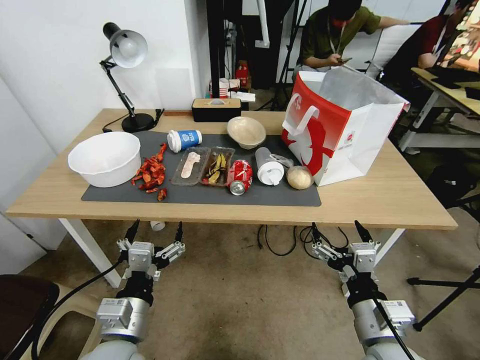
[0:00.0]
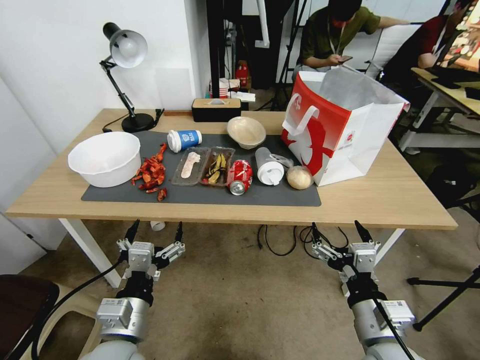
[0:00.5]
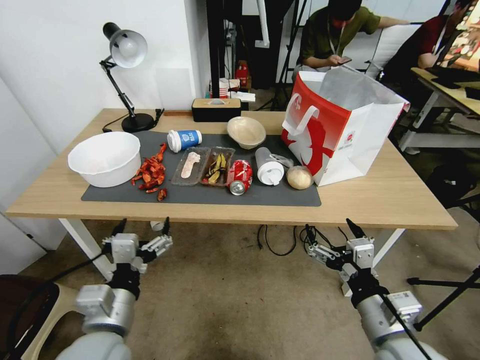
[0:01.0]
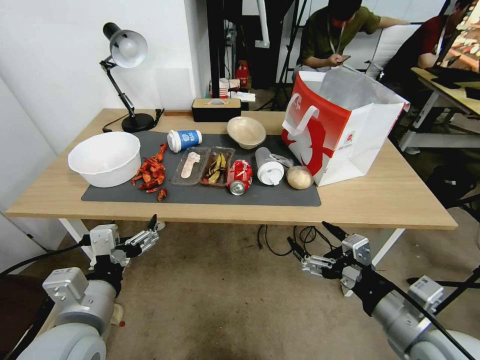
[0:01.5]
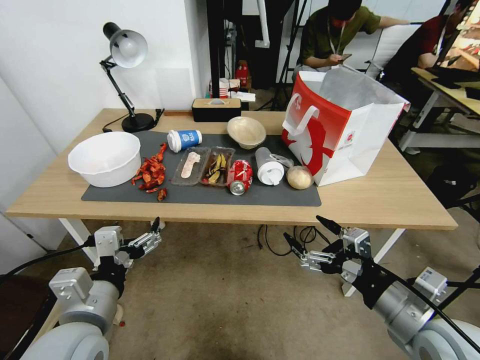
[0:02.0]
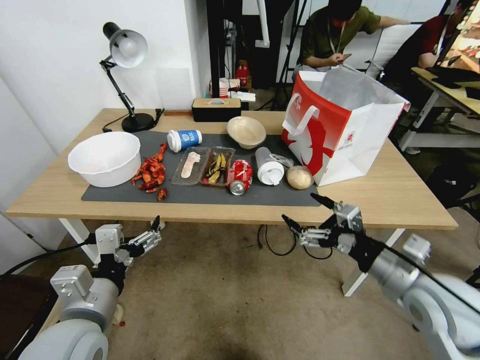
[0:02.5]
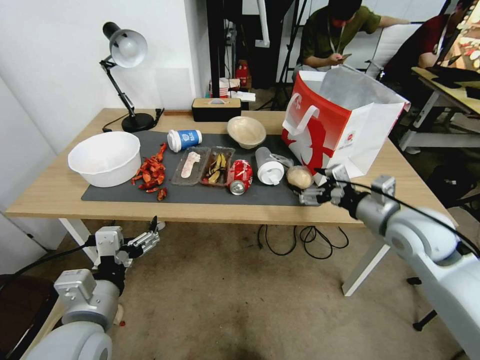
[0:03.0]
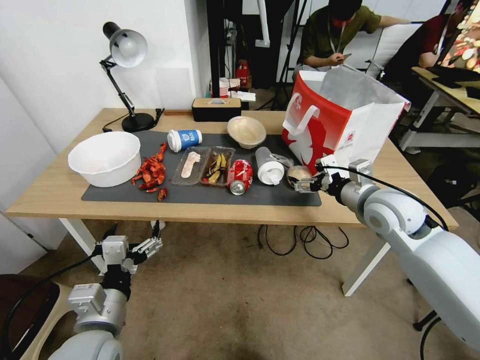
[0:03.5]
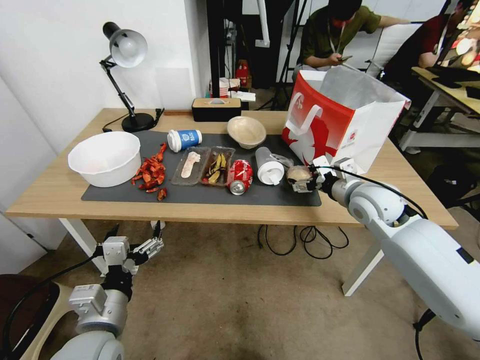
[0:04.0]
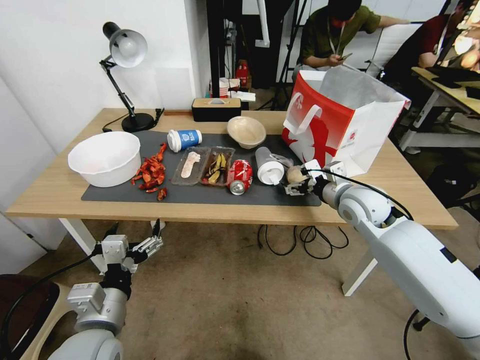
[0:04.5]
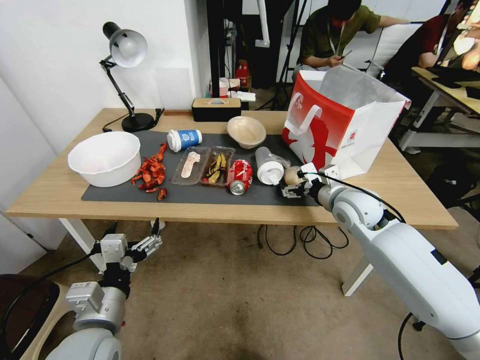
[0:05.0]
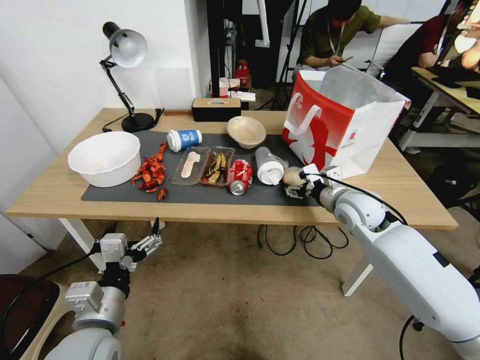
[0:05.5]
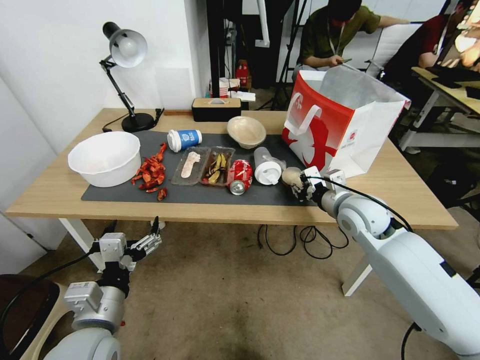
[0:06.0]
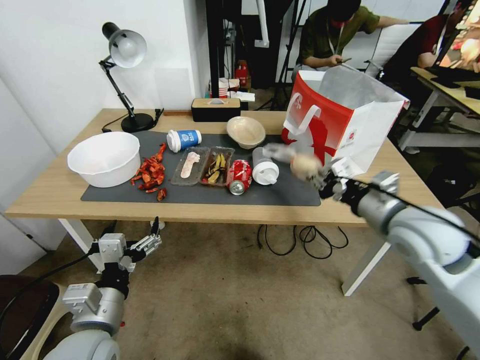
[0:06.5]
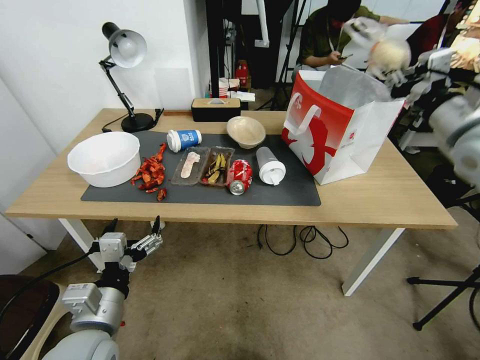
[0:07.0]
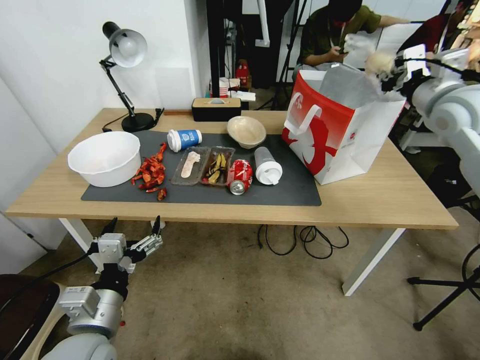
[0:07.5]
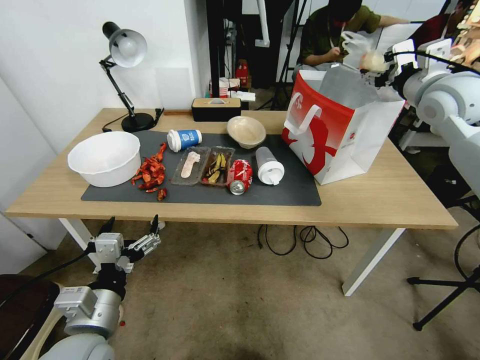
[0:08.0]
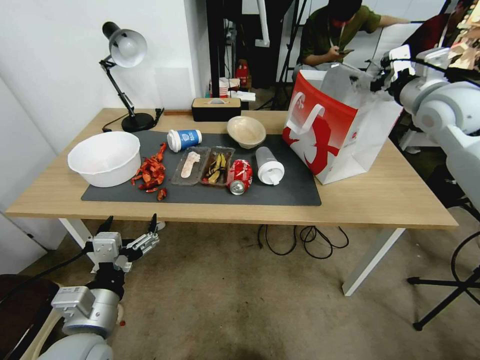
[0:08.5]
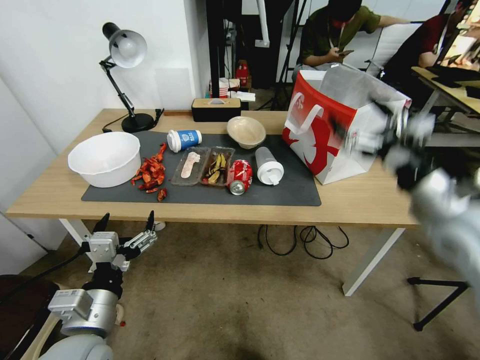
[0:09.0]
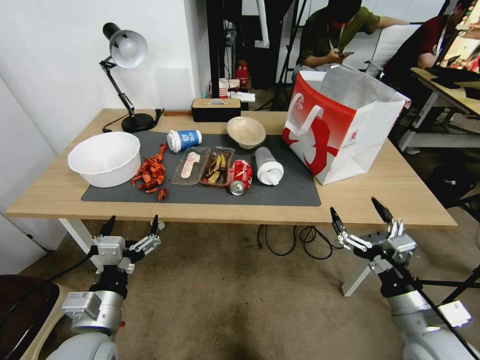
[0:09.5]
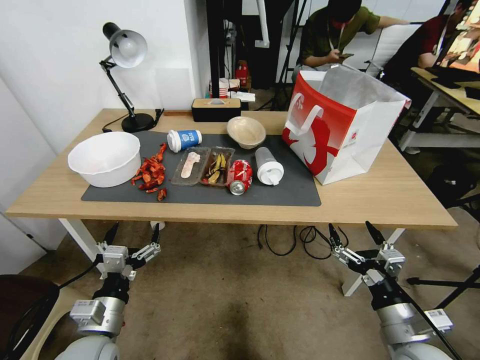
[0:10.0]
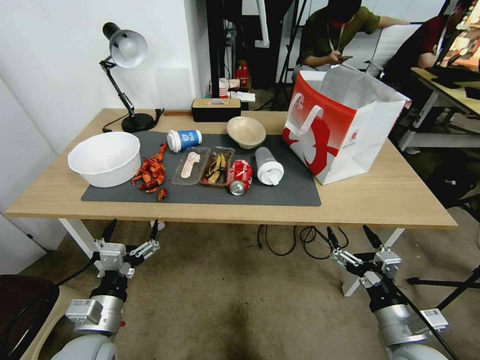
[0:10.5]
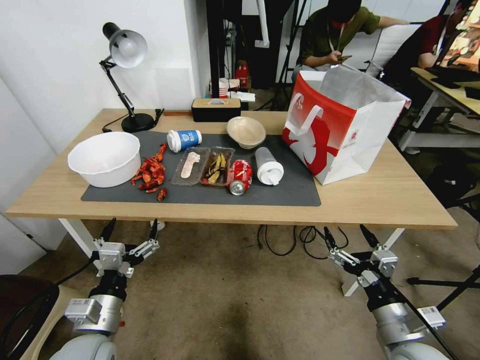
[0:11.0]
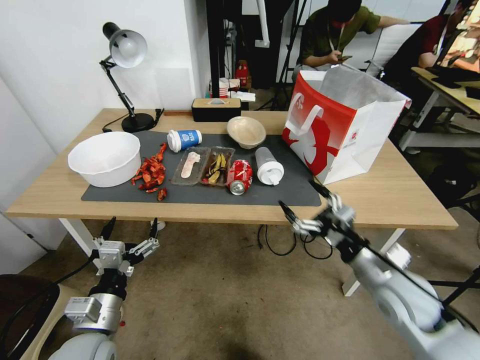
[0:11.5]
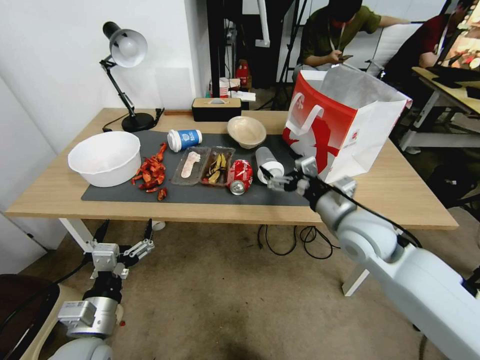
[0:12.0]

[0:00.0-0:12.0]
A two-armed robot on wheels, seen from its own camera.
2.0 to 4.0 s: The right gripper moves forward, approximately 25 cm. Meanwhile the left gripper moves downward, some 5 cm.
4.0 to 6.0 s: The right gripper closes its fingers.
6.0 to 8.0 s: The right gripper is displaced upward and to the right by approximately 25 cm, and opens up.
8.0 to 10.0 s: The right gripper shifts approximately 50 cm backward and downward, and opens its fingers, while the left gripper shifts approximately 10 cm downward.
10.0 to 12.0 s: The right gripper goes roughly 25 cm forward and upward.

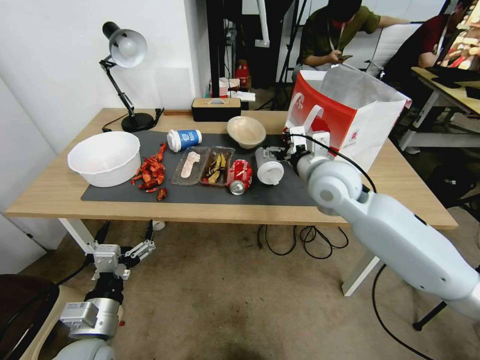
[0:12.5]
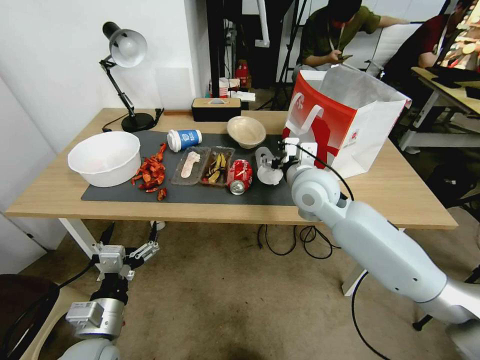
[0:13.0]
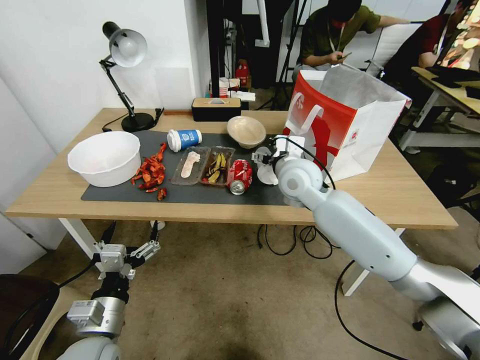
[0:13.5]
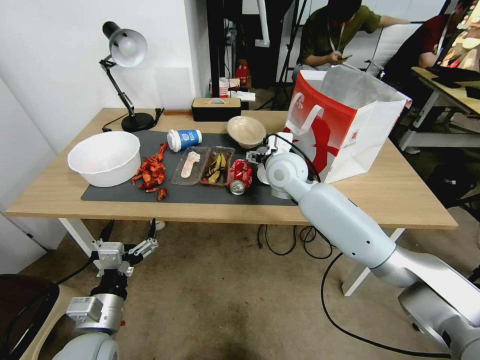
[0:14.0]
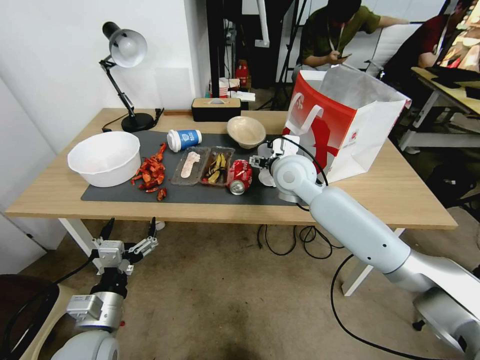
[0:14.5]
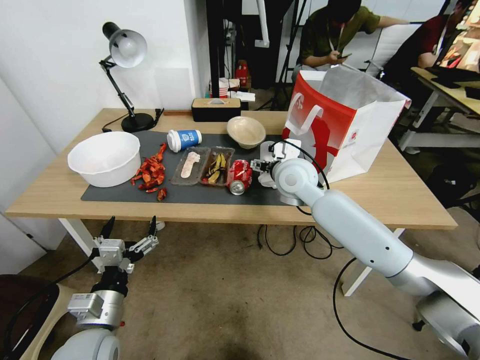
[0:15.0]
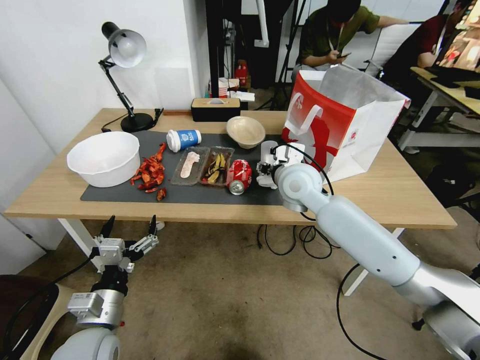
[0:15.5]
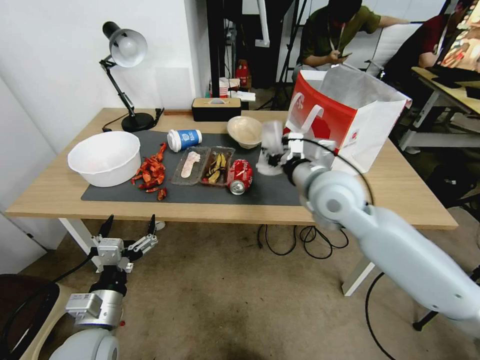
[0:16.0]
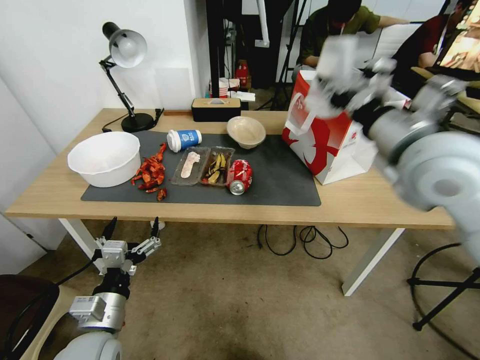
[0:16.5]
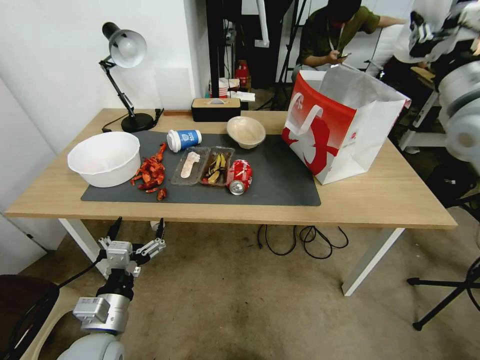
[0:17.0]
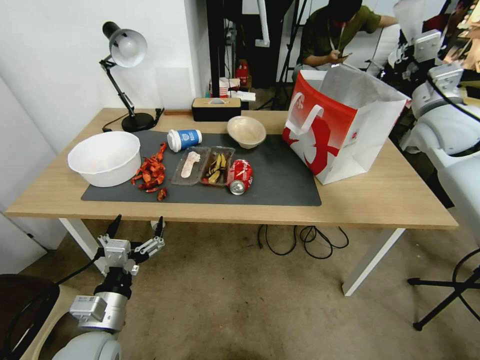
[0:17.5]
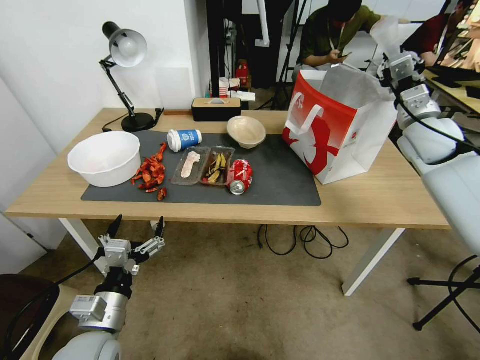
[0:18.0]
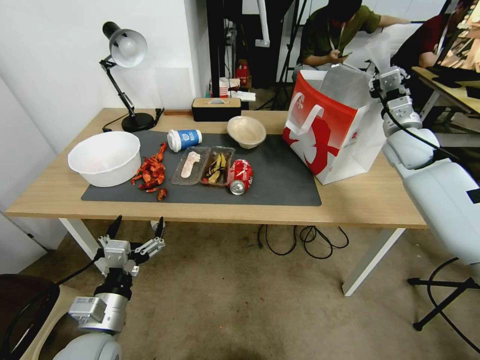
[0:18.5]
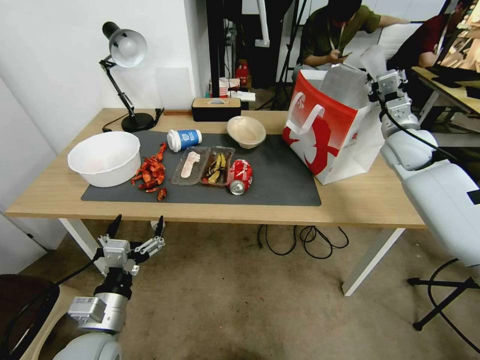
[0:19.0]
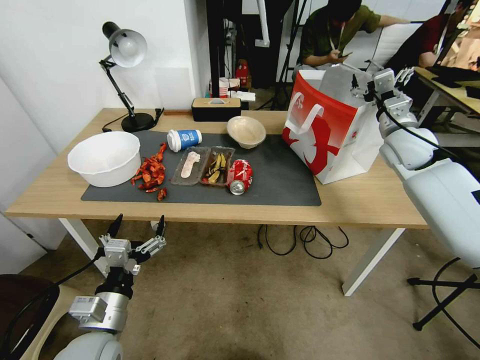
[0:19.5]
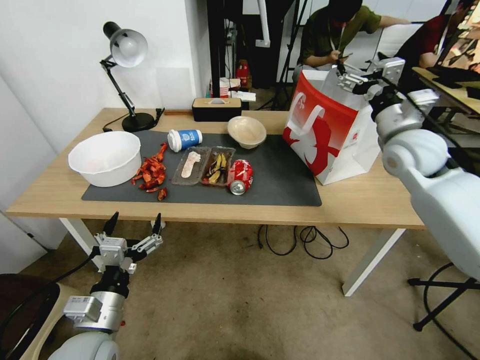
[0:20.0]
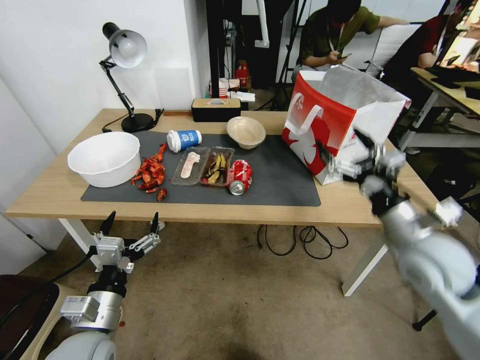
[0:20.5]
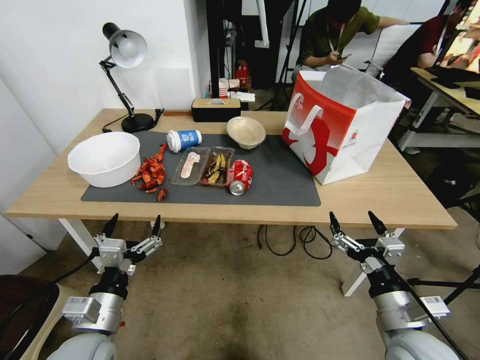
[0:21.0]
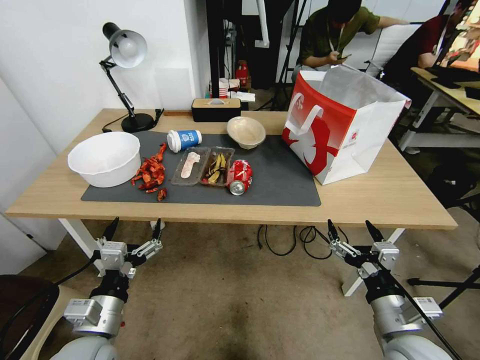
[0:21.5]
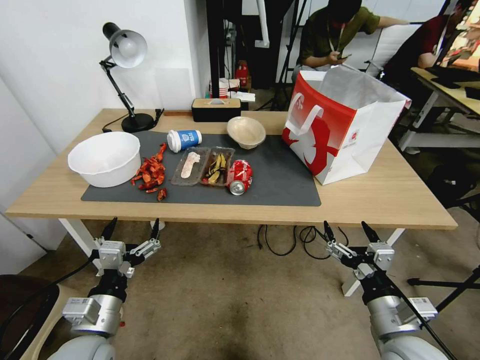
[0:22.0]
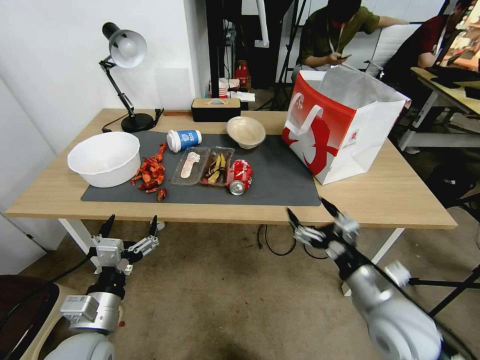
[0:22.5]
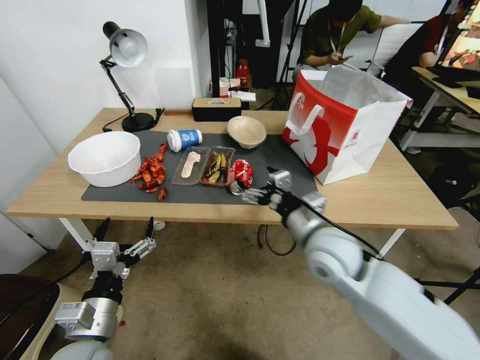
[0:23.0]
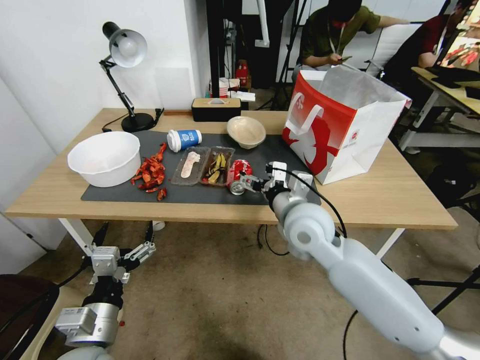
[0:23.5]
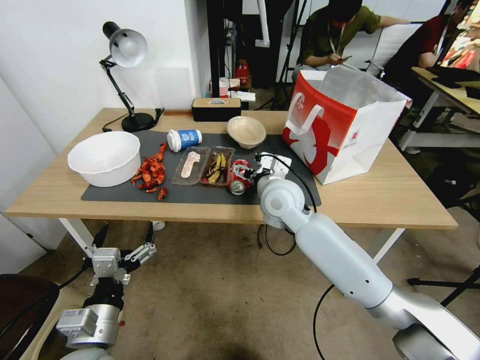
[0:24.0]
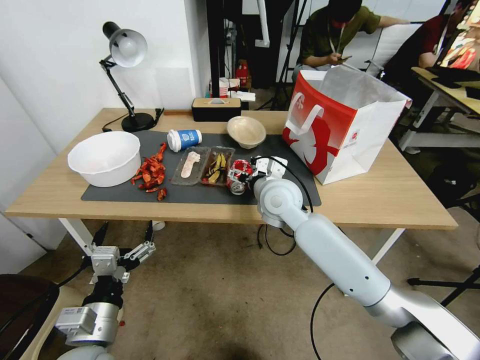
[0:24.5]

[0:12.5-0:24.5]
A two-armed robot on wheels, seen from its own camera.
12.5 to 14.5 s: The right gripper travels to the left and forward by about 10 cm.
14.5 to 16.5 s: The right gripper is displaced upward, backward and to the right by roughly 25 cm, and closes.
16.5 to 18.5 s: The right gripper moves forward, to the right and downward, roughly 25 cm.
18.5 to 20.5 s: The right gripper shifts about 25 cm backward, and opens its fingers.
20.5 to 22.5 s: The right gripper travels downward, backward and to the left by some 15 cm.
22.5 to 24.5 s: The right gripper is displaced forward and to the left by about 30 cm.

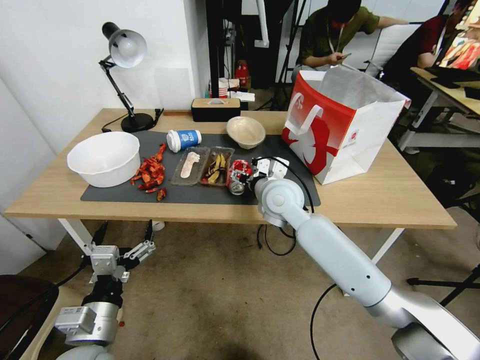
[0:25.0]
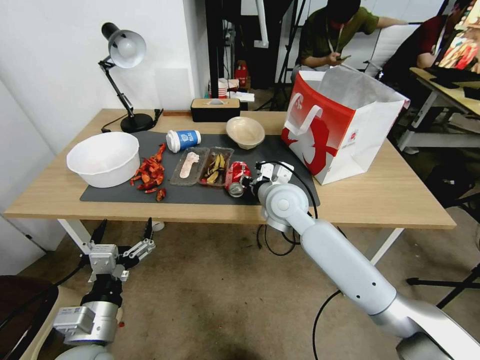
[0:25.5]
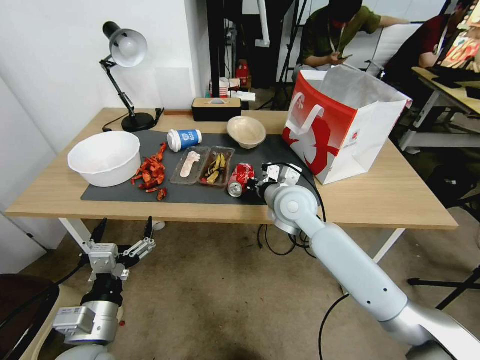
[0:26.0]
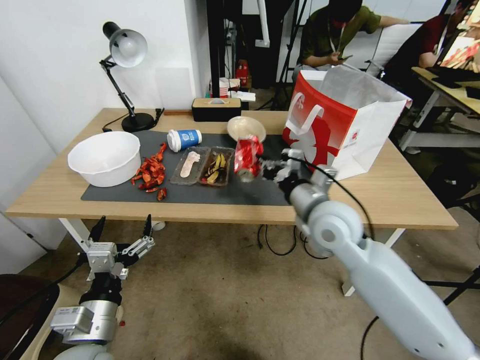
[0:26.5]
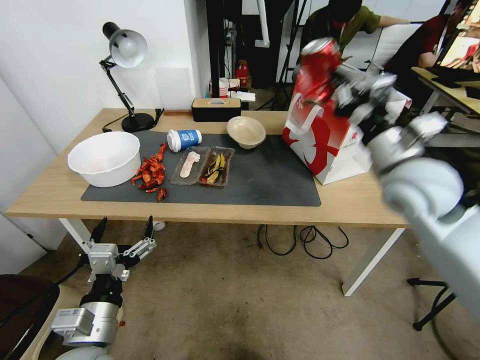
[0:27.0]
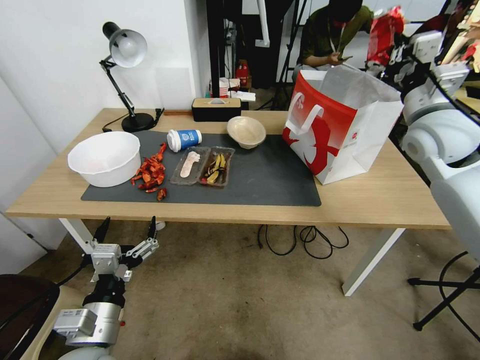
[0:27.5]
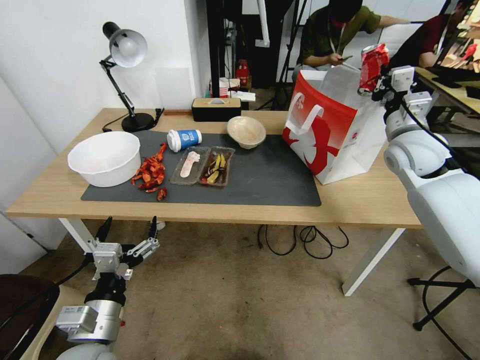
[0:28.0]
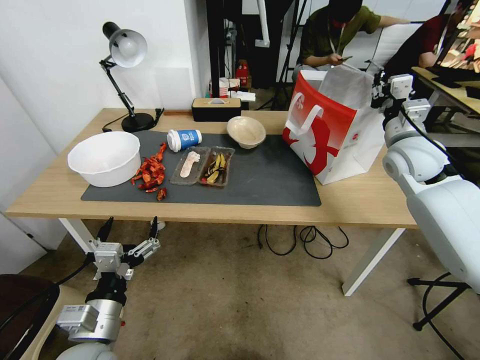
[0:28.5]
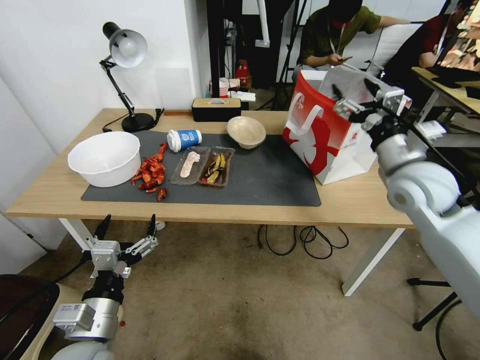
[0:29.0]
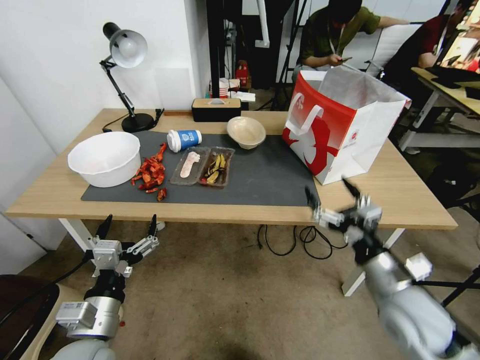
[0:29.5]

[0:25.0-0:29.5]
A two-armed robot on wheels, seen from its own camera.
25.0 to 27.0 s: The right gripper is displaced to the right, upward and backward by some 25 cm, and closes up.
27.0 to 29.5 s: The right gripper travels downward and backward by about 20 cm, and opens up.
